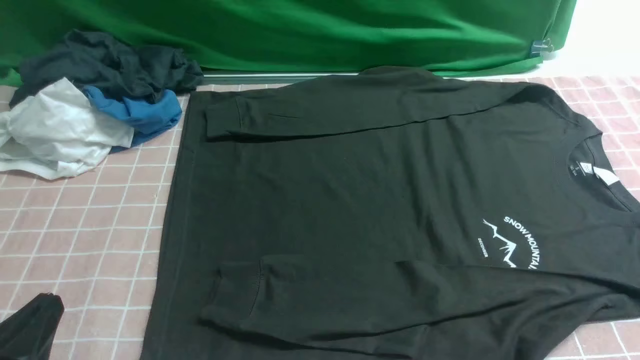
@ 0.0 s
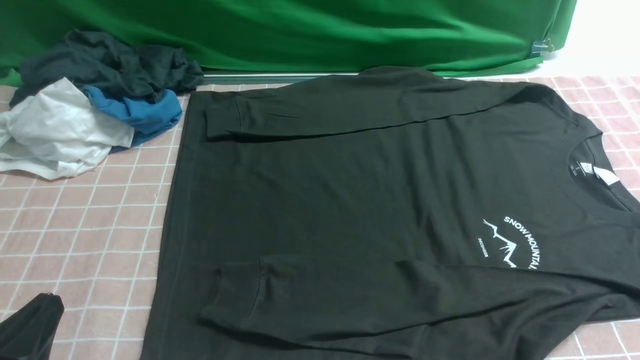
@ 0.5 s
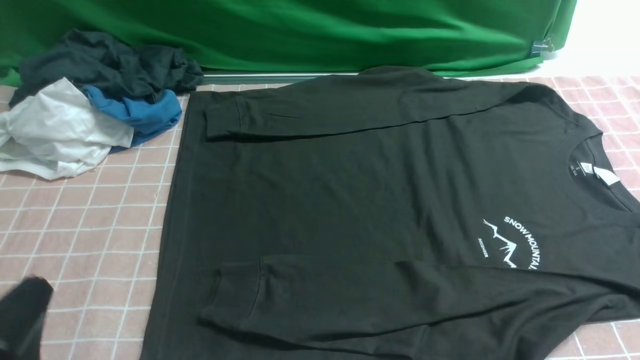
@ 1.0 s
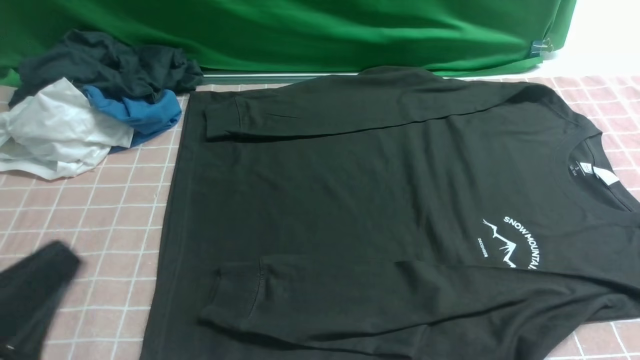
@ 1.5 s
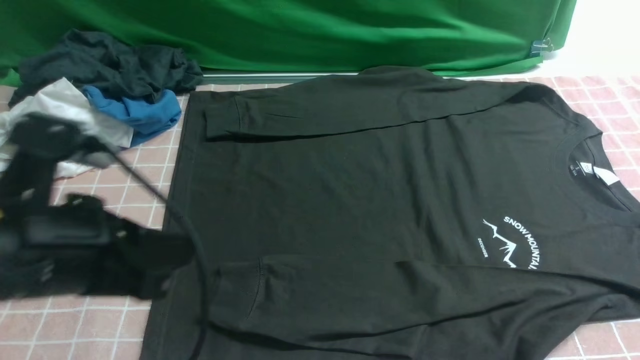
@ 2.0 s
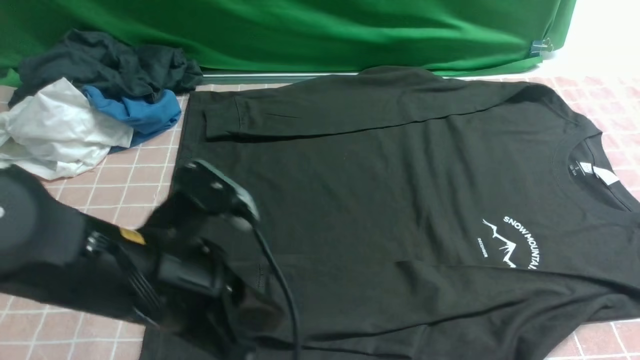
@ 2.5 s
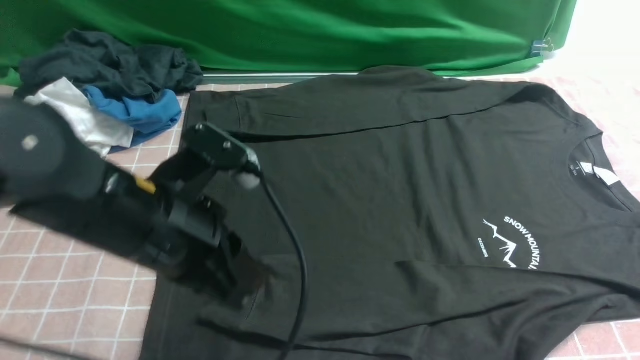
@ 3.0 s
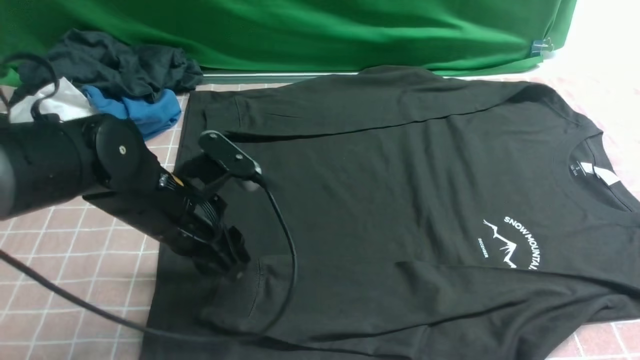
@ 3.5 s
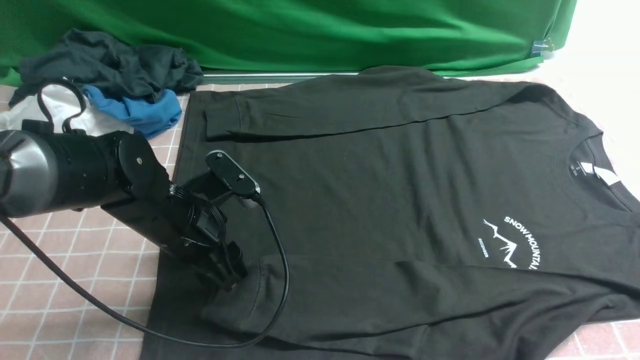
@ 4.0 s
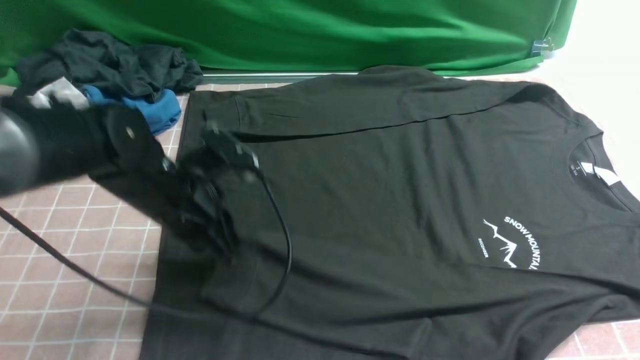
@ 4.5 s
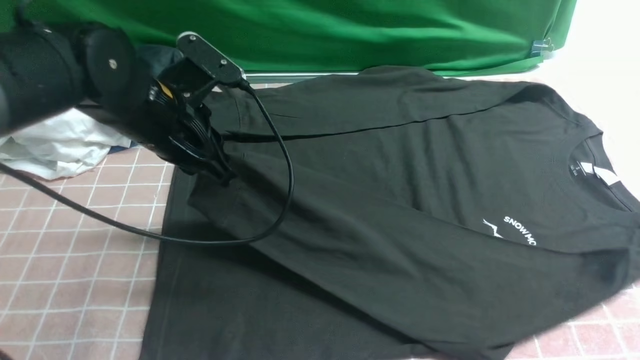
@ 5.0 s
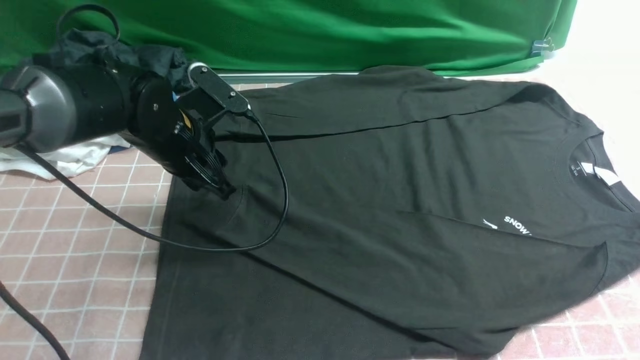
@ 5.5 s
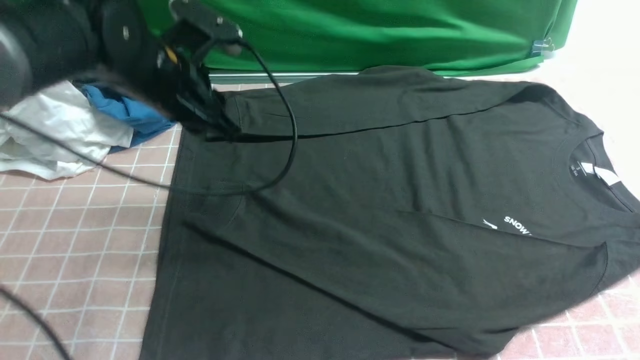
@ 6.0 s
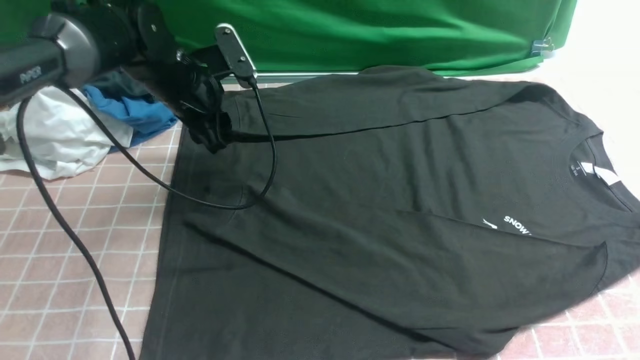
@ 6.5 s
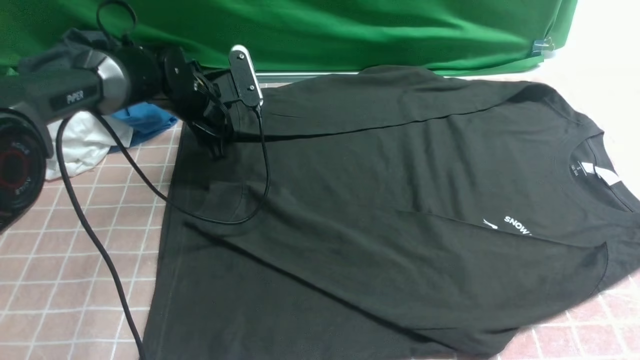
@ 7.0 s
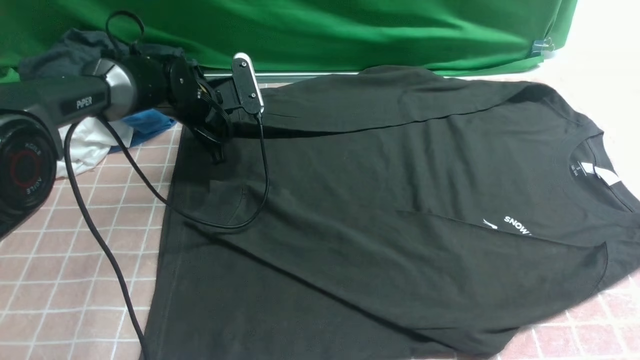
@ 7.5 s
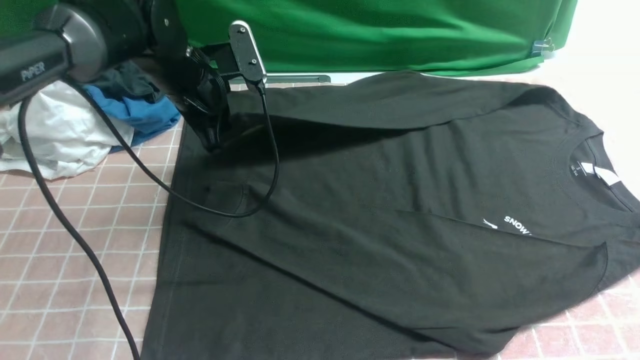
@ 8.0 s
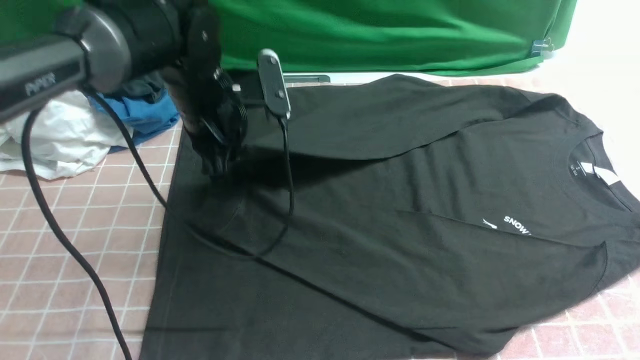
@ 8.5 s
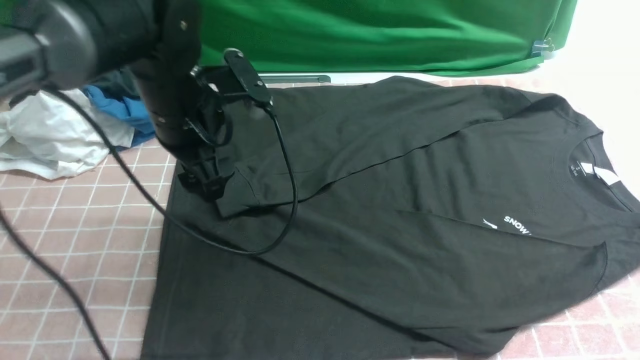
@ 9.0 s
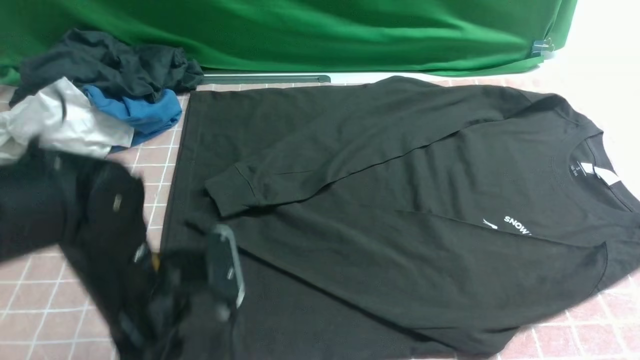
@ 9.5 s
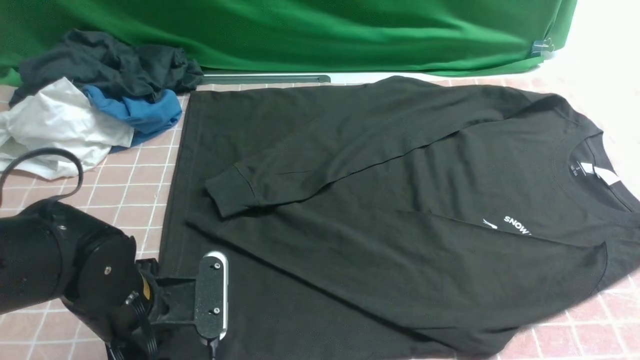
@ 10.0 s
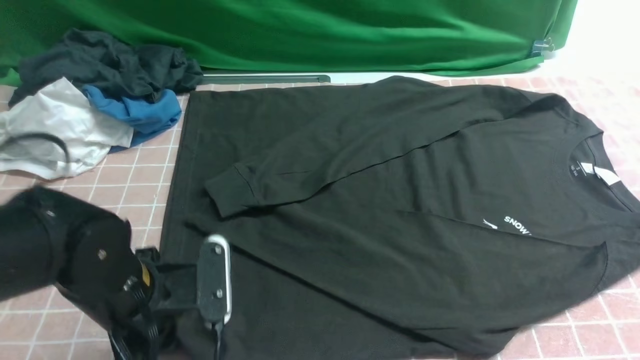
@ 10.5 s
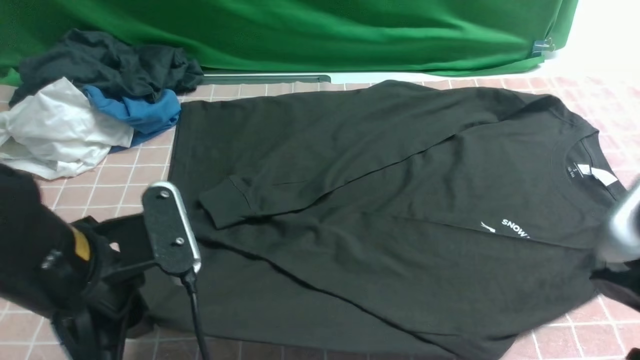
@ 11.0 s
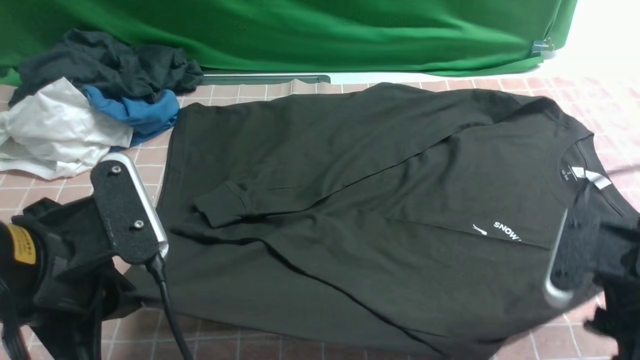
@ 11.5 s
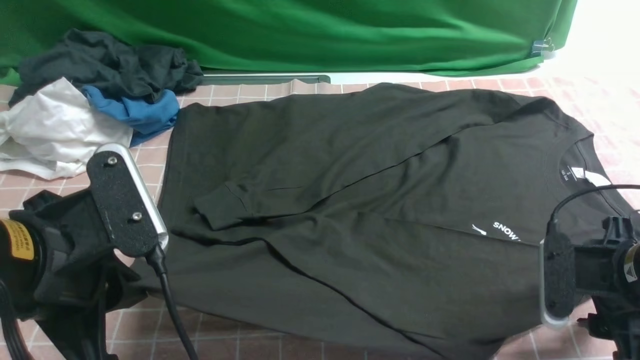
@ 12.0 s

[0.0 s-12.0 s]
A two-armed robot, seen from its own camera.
Step, 0.0 to 4.5 s: use the left arm to clamp the cuff closest to it.
Step, 5.0 to 5.5 s: use the left arm to drag and place the cuff at the centered position on the left edge of the fabric.
Step, 6.0 to 8.5 s: use the left arm to drag and drop the cuff onto the cuff closest to the left arm.
0.0 to 2.0 s: The left gripper goes about 15 cm forward, upward and to the right.
2.0 to 4.0 s: The right gripper heads upward, covering about 15 cm. The left gripper shifts roughly 20 cm downward and forward, and opens.
4.0 to 6.0 s: The left gripper shifts about 15 cm upward and forward, and closes, then opens again.
6.0 to 8.0 s: The left gripper heads forward, covering approximately 5 cm, goes downward and returns, some 10 cm each way, and closes up.
8.0 to 10.0 s: The left gripper travels backward by some 25 cm, and opens its fingers.
10.0 to 12.0 s: The left gripper moves upward, about 15 cm, and closes up; the right gripper shifts some 25 cm downward and forward, and opens its fingers.

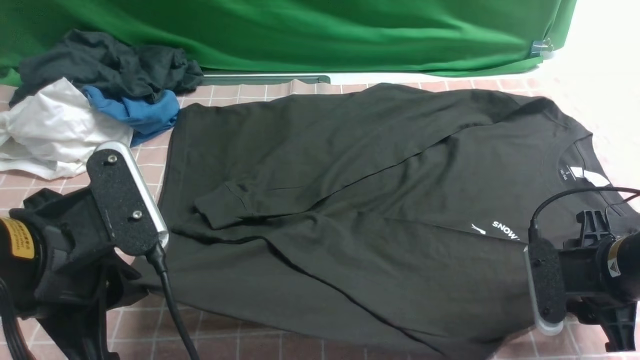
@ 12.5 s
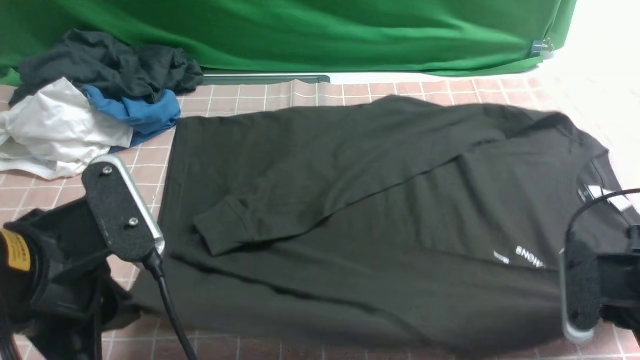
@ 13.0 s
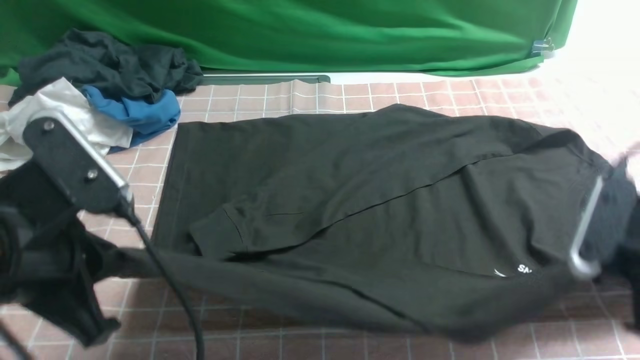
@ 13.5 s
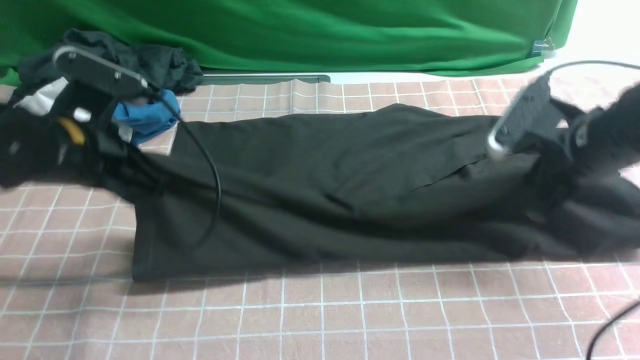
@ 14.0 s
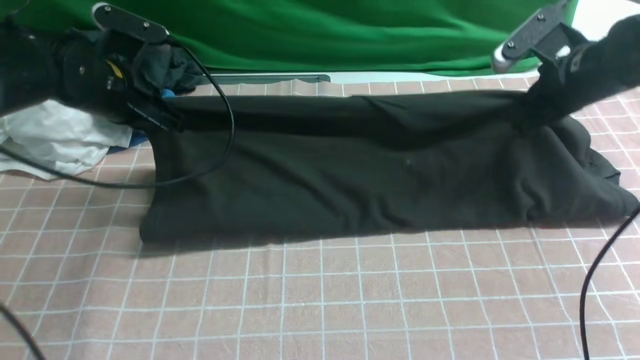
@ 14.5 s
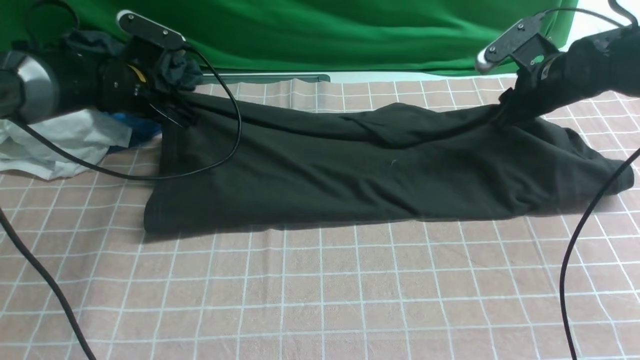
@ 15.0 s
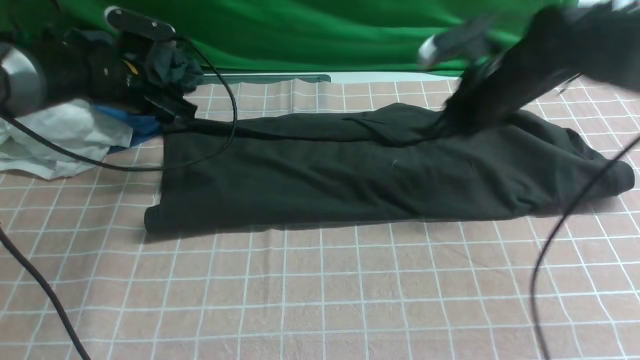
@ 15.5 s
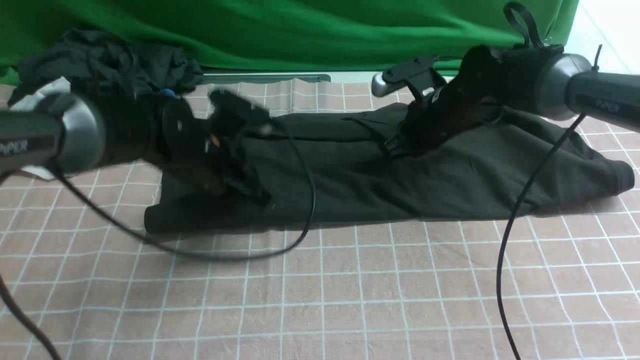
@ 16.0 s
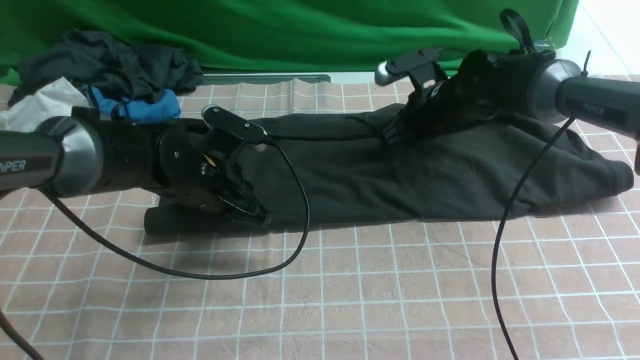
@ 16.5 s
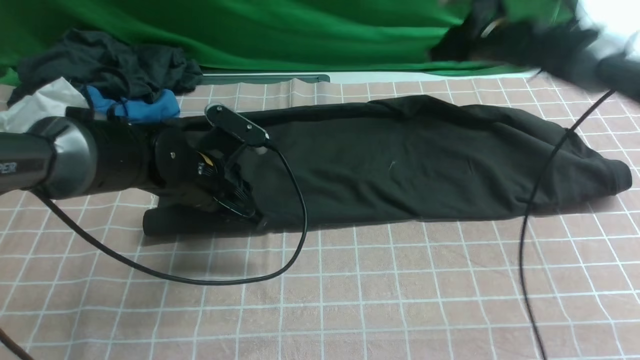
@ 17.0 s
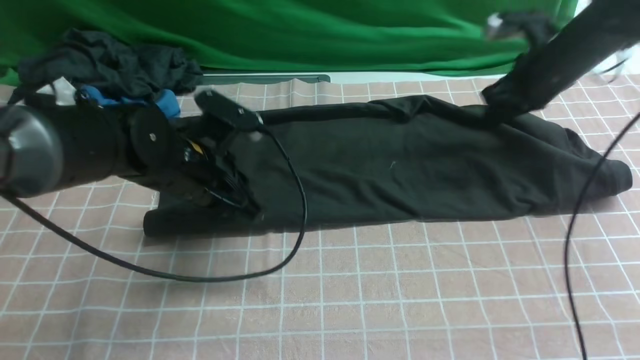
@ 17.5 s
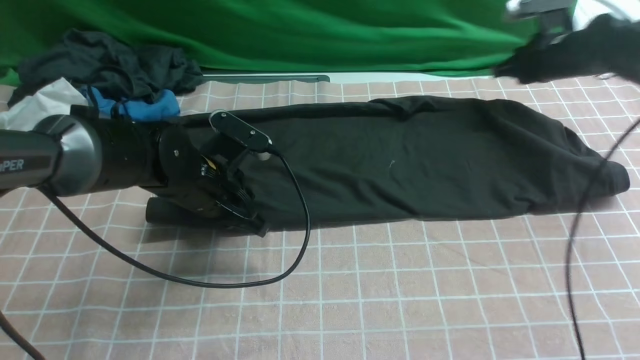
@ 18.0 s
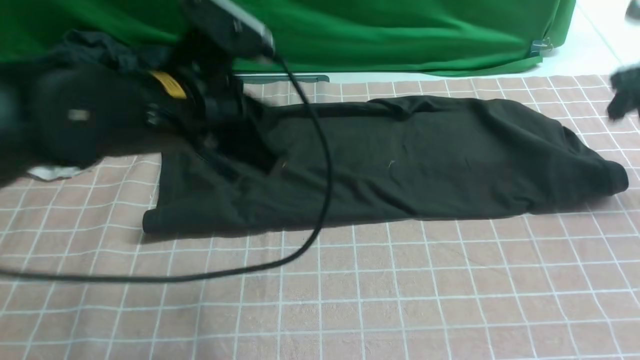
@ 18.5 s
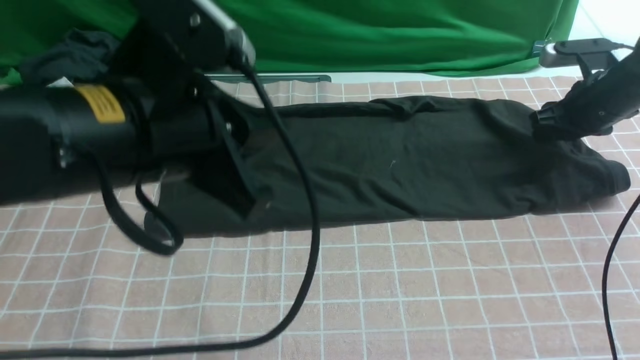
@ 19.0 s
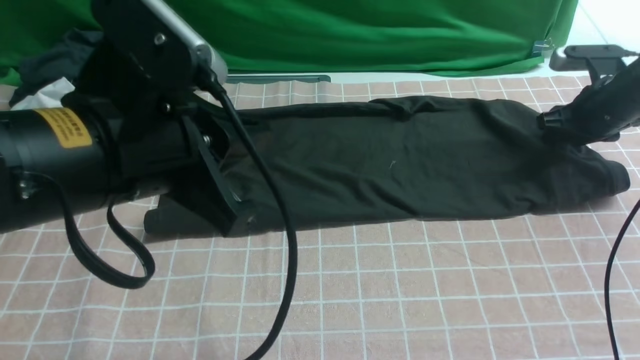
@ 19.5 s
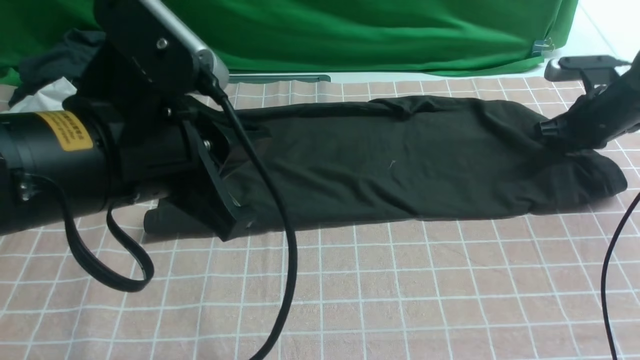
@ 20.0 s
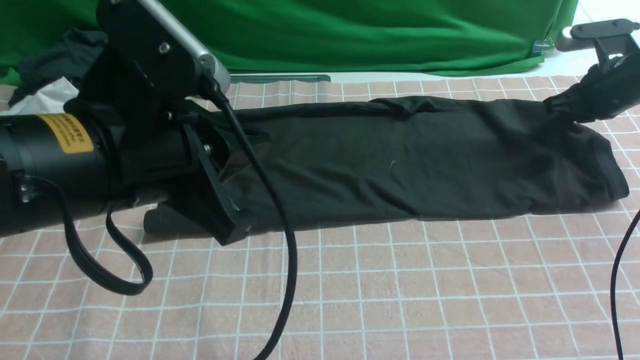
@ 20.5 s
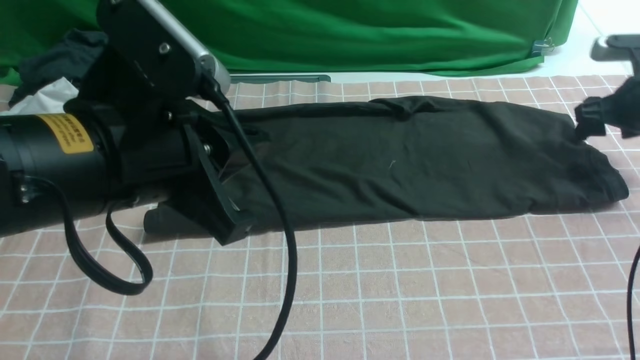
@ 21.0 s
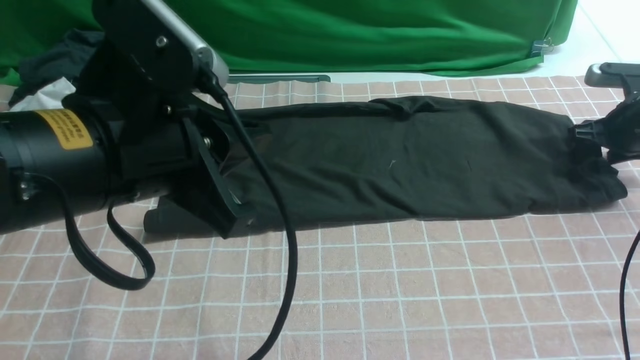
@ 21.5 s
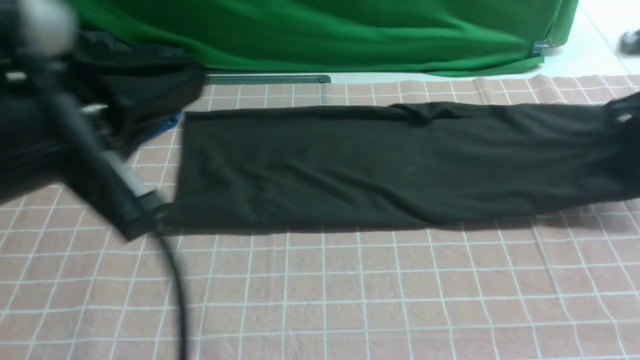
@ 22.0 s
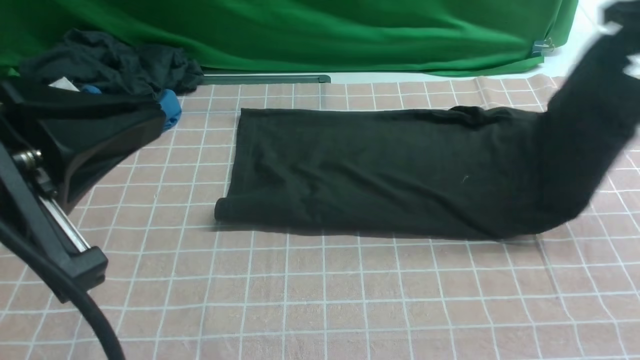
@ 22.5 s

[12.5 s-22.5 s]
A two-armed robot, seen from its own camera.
Step, 13.5 to 15.0 s: use both arms to drag the lower edge of the fabric forward and fold it over the upper edge.
Step, 16.0 to 21.5 s: use the right arm to clamp the right edge of the fabric.
12.5 to 14.5 s: The right gripper heads forward and upward, covering roughly 20 cm, and closes its fingers, while the left gripper goes approximately 25 cm forward.
14.5 to 16.5 s: The left gripper moves to the right, downward and backward, approximately 15 cm, and opens, then closes once more. The right gripper shifts roughly 15 cm to the left, downward and forward, and opens and closes again.
16.5 to 18.5 s: The right gripper is displaced to the right by some 25 cm, and opens, while the left gripper heads upward and backward, covering approximately 20 cm.
18.5 to 20.5 s: The left gripper goes approximately 10 cm backward. Meanwhile the right gripper ends up roughly 5 cm from where it was, and closes.
20.5 to 22.5 s: The left gripper shifts about 10 cm backward. The right gripper travels upward and backward by some 15 cm, and opens and closes again.
